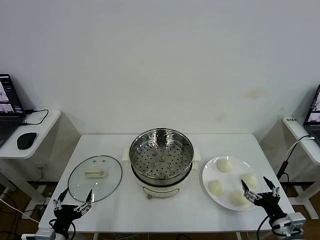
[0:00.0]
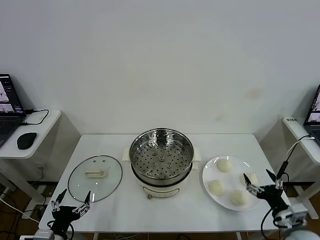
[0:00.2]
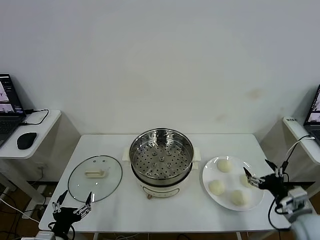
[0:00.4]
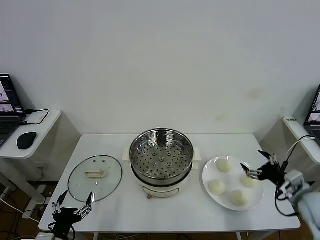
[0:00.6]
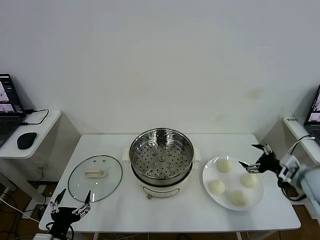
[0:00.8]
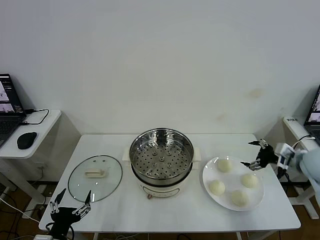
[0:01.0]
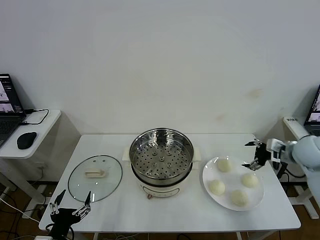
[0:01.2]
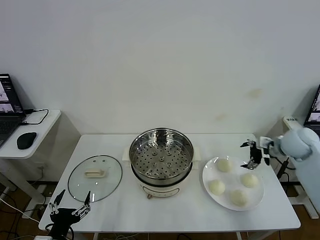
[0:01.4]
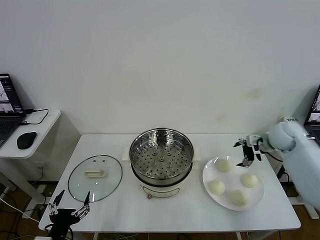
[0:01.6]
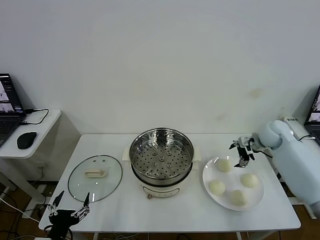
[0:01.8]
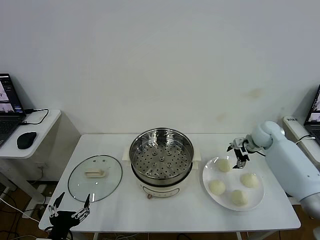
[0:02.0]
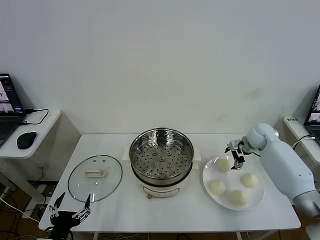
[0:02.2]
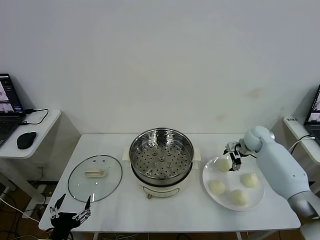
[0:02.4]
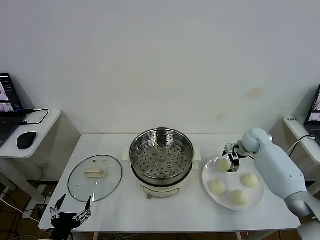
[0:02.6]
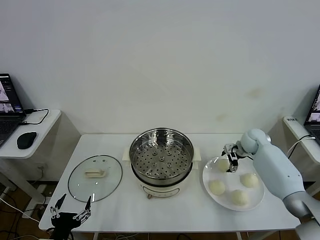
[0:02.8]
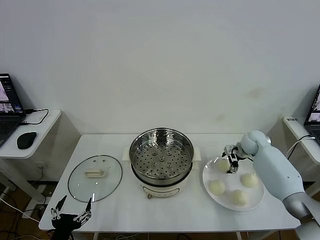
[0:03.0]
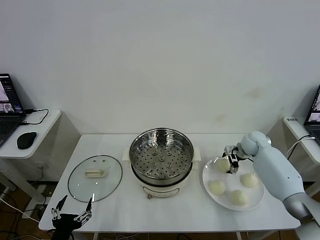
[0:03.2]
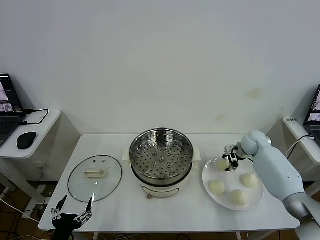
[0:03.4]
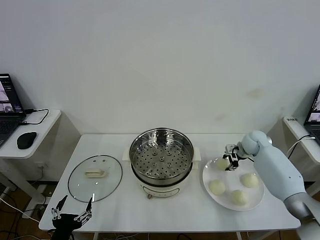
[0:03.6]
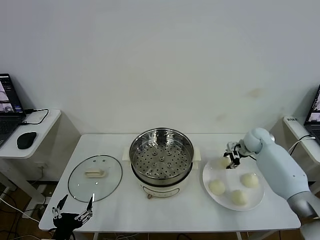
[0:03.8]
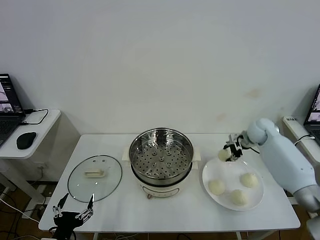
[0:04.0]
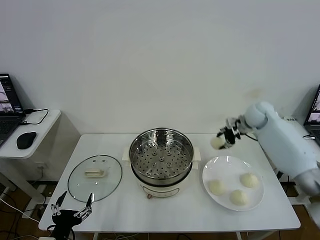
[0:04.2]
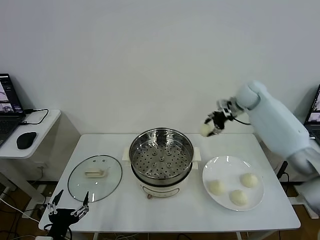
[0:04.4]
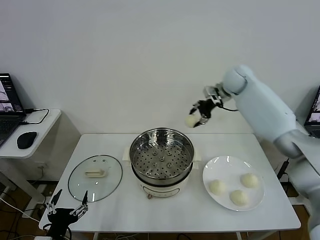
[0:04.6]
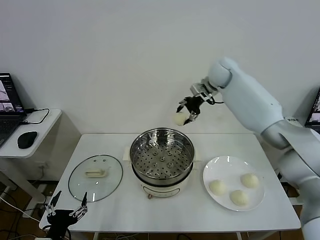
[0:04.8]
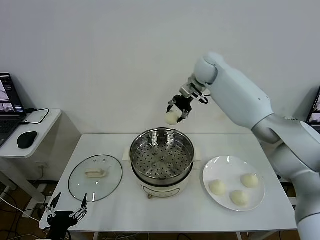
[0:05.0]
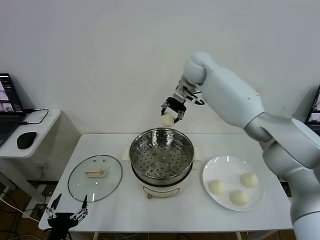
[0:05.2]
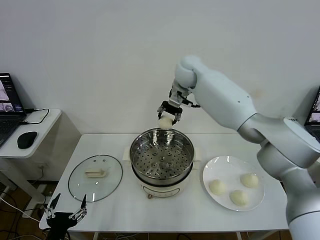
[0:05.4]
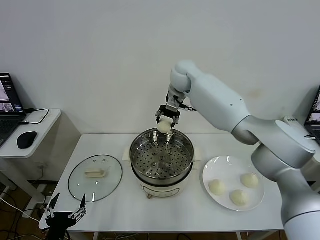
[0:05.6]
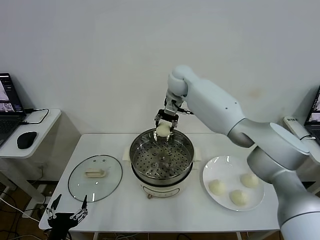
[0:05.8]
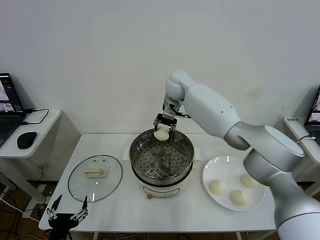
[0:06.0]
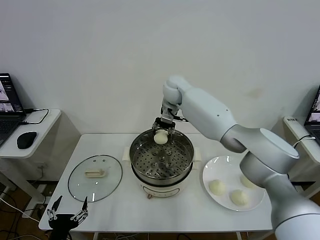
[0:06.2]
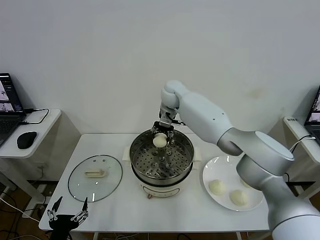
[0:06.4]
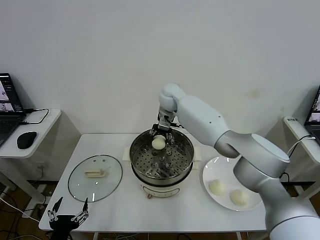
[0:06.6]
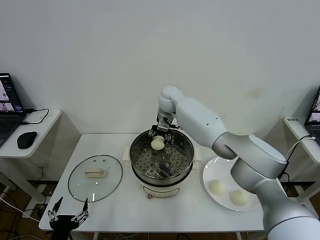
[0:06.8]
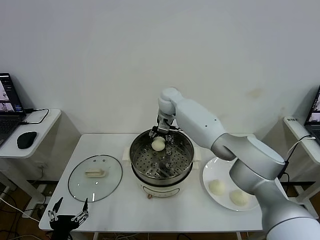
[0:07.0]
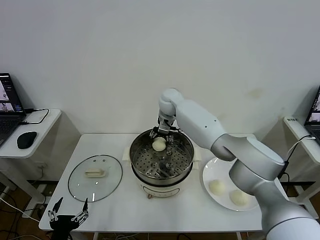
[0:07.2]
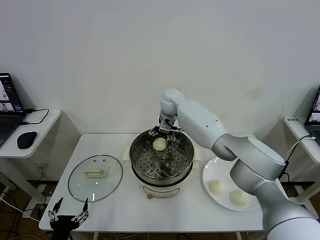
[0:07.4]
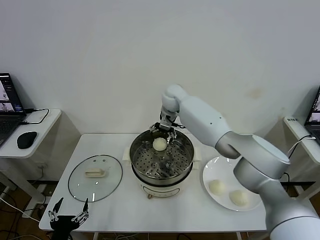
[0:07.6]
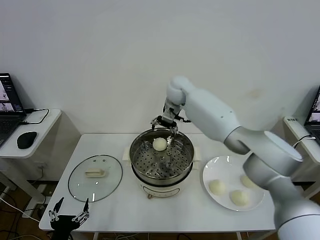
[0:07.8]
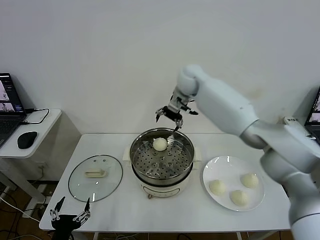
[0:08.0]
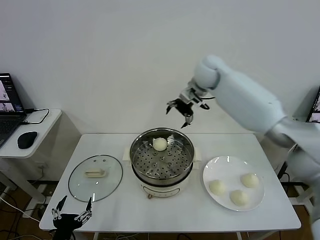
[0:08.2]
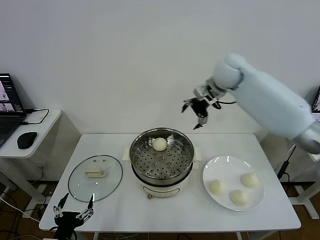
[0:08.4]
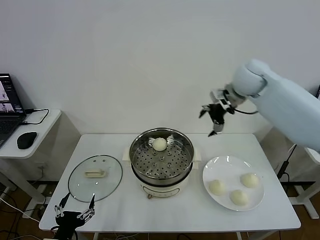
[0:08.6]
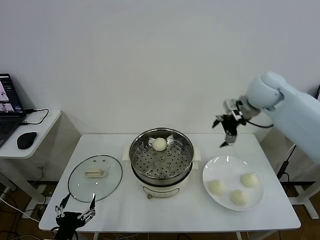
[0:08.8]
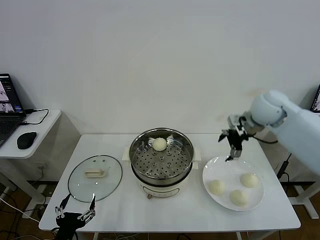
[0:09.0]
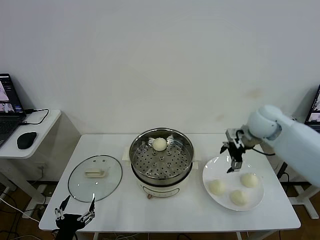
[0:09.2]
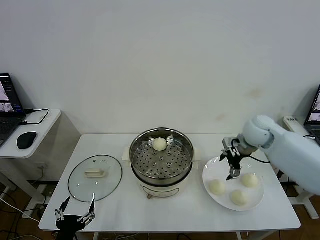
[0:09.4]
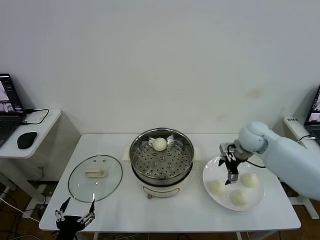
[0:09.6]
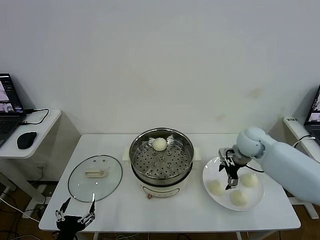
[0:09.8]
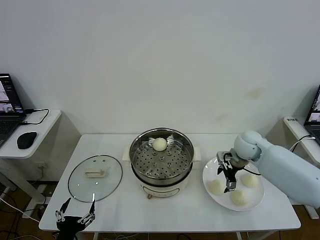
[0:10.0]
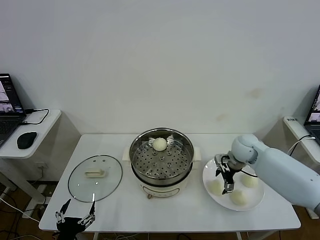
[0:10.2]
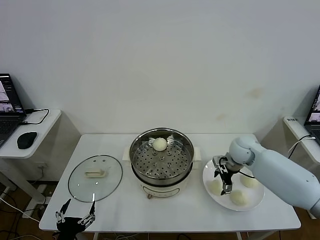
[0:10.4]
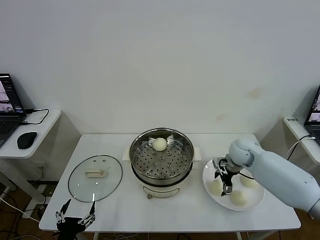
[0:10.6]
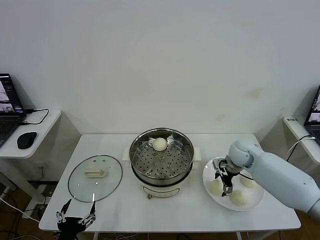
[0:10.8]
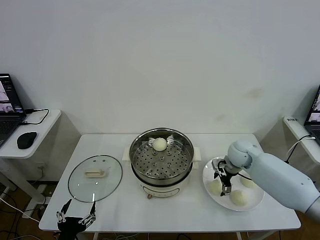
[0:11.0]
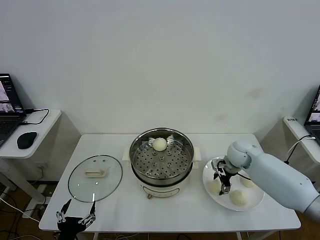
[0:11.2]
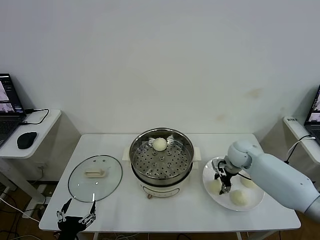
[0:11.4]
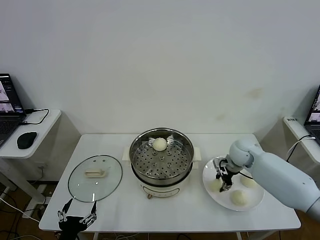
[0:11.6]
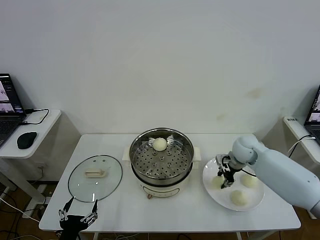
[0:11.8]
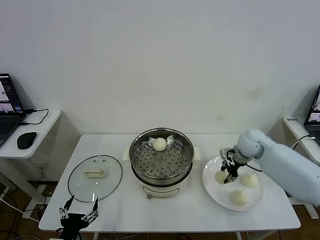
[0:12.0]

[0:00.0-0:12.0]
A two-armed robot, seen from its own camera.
Step, 0.0 to 3.4 s: Grasp the baozi in the plate with right gripper.
Step, 3.6 to 7.2 s: Place the baozi on the steamer with right gripper.
Step, 7.6 to 11.6 s: Grasp the baozi in the plate with right gripper.
1.6 to 3.0 s: The right gripper goes some 10 cm downward.
3.0 to 4.4 s: The right gripper is displaced upward and to the left by about 25 cm, and closes its fingers.
4.4 to 6.0 s: The right gripper shifts roughly 20 cm to the left.
6.0 to 7.6 s: The right gripper opens.
7.6 to 9.0 s: The right gripper heads to the right and backward, covering some 30 cm.
9.0 to 10.4 s: The right gripper moves downward, approximately 15 cm.
10.4 to 12.0 s: The right gripper goes about 5 cm upward, and closes up.

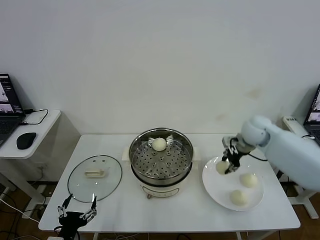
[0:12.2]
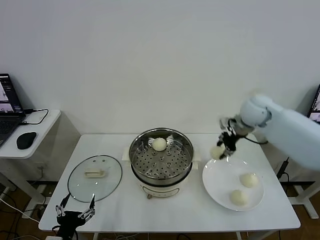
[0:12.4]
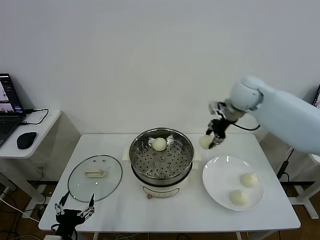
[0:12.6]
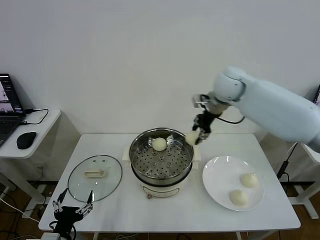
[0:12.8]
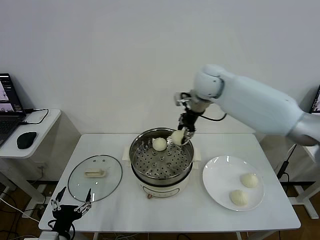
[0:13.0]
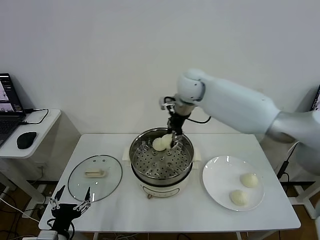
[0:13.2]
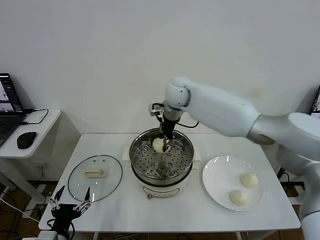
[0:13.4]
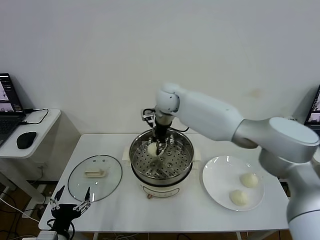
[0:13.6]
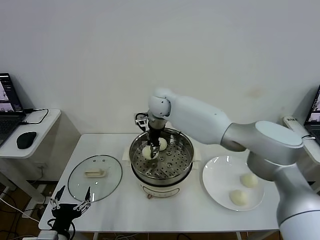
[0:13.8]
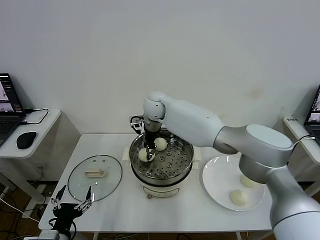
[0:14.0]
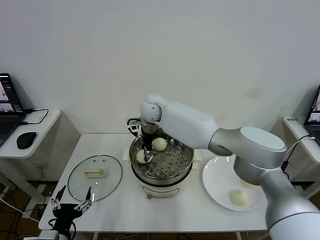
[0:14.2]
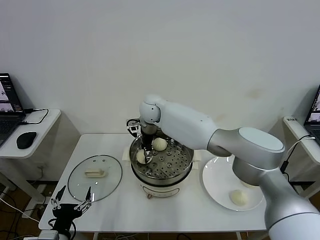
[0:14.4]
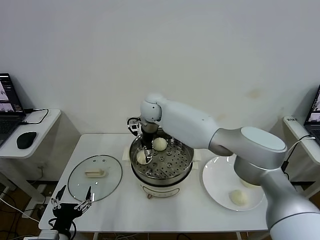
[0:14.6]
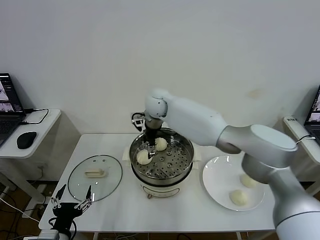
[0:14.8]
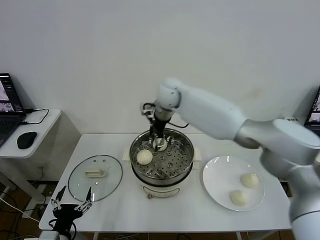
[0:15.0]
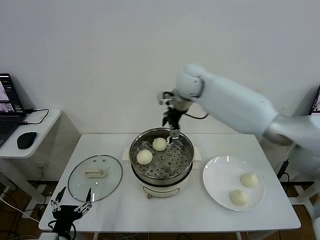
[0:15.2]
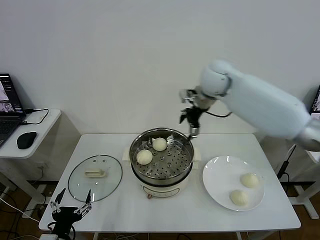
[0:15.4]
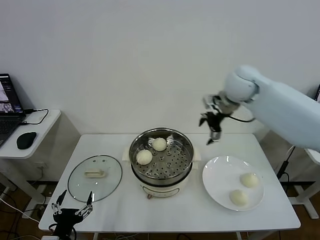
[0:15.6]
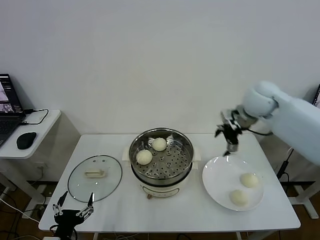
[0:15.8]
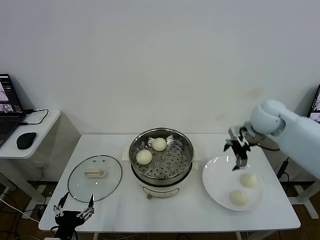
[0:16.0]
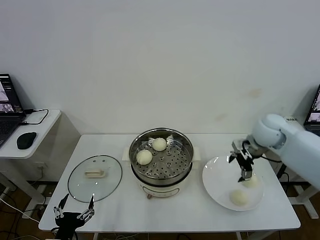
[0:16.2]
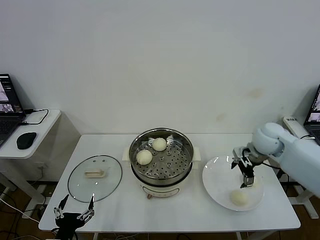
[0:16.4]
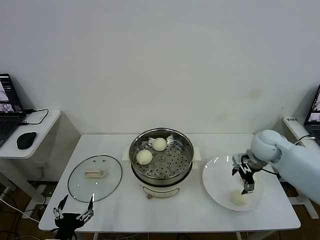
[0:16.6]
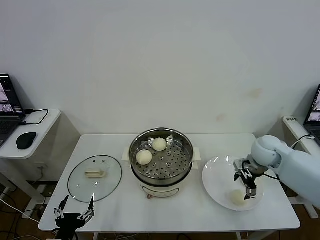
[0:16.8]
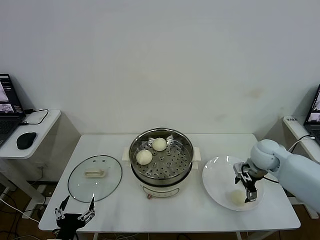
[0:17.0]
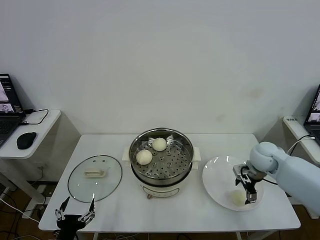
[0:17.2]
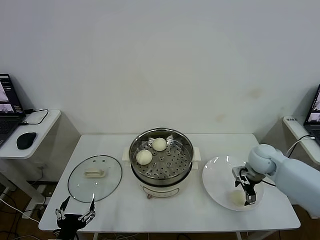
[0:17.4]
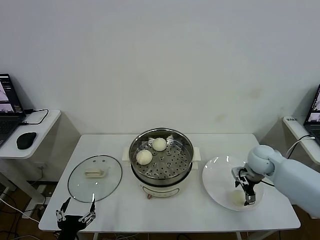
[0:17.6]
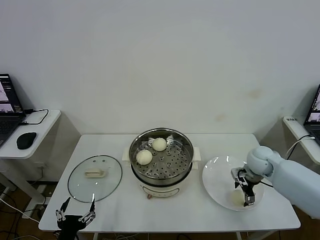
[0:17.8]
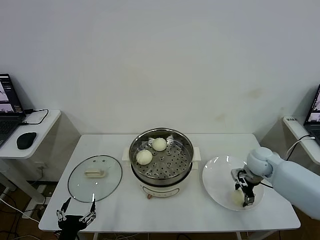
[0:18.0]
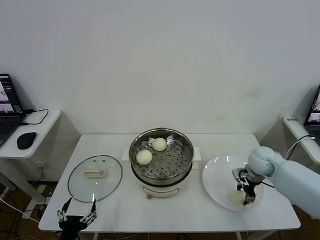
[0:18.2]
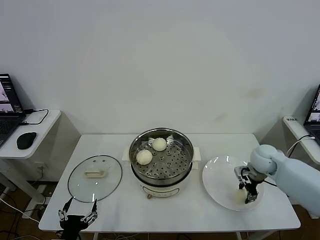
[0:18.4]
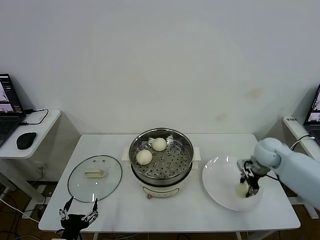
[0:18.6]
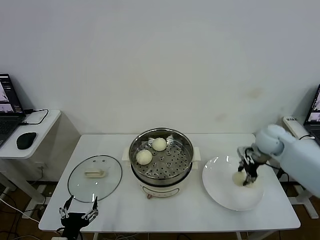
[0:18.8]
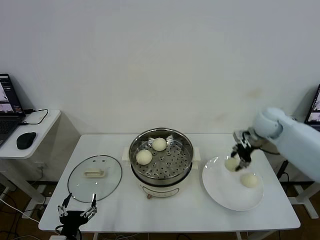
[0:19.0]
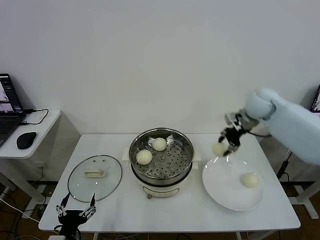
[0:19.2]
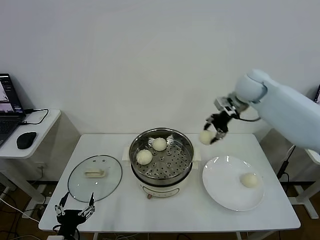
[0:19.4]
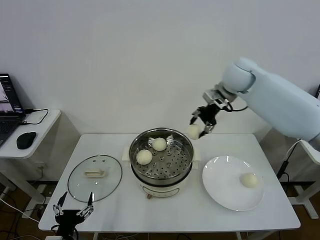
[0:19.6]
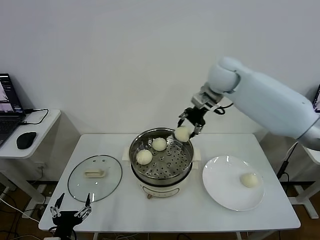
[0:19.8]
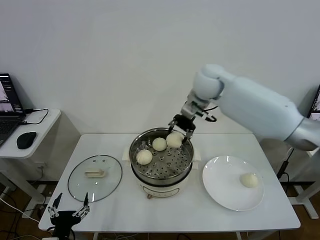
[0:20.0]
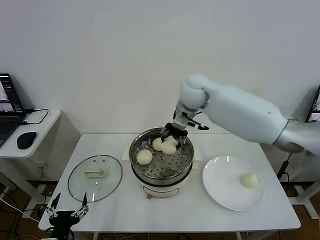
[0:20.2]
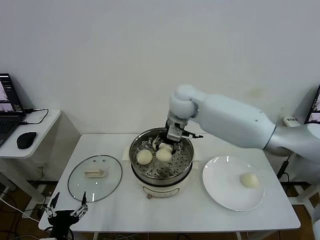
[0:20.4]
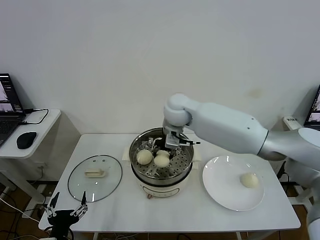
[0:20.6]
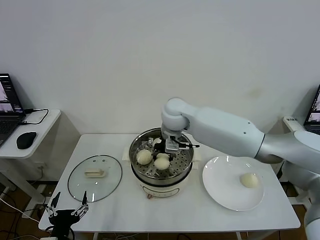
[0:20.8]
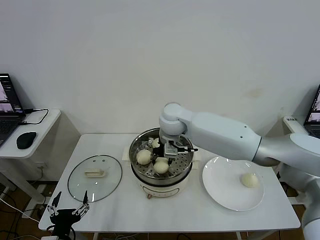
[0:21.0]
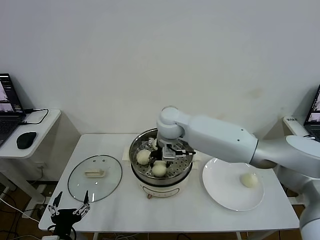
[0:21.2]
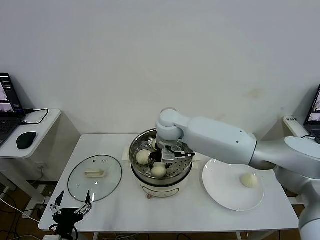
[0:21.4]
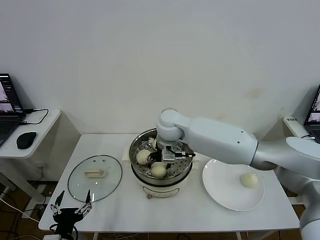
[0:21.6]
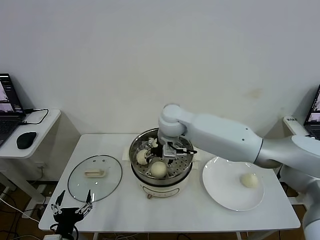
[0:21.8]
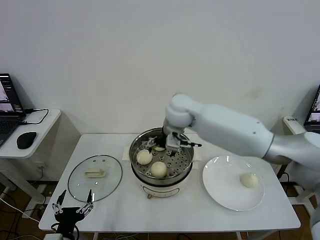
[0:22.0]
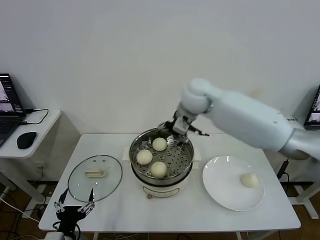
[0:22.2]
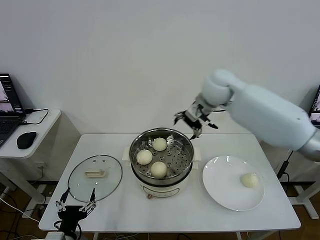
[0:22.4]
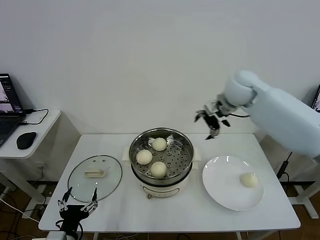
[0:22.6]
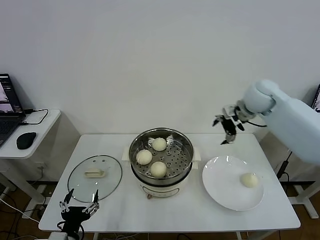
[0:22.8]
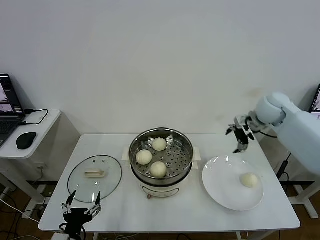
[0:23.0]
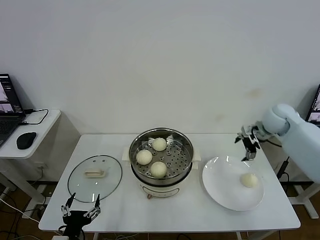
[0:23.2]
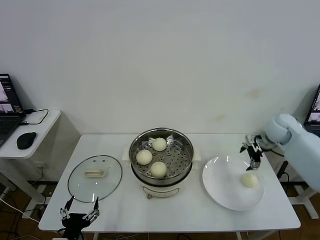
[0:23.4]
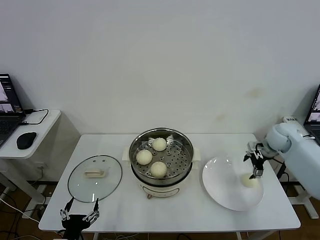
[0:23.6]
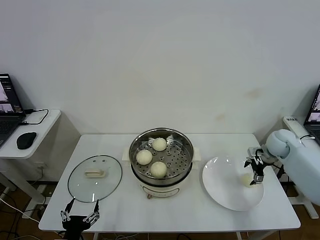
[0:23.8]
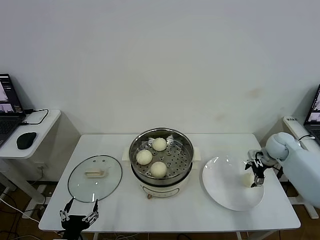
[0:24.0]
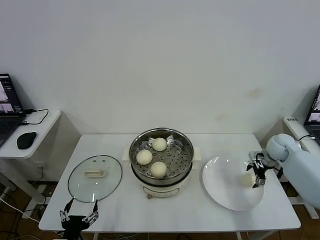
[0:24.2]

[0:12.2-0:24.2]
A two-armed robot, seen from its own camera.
Step, 12.2 to 14.6 s: Place the baozi on the steamer with right gripper.
Step, 14.8 to 18.2 s: Grasp the baozi in the plate with right gripper.
Step, 18.6 to 21.6 s: Place the baozi on the steamer with right gripper.
12.2 to 13.8 s: The right gripper shifts about 30 cm to the left.
13.8 to 15.2 s: The right gripper is displaced to the right and upward by some 15 cm, and opens its fingers.
15.2 to 16.6 s: The right gripper shifts about 30 cm to the right, downward and backward.
16.6 to 18.2 s: The right gripper is displaced downward by approximately 5 cm, and closes its fingers.
18.2 to 19.8 s: The right gripper heads upward, to the left and forward, covering approximately 35 cm.
19.8 to 21.2 s: The right gripper travels to the left, downward and backward by some 20 cm.
21.2 to 22.6 s: The right gripper moves to the right and upward, approximately 25 cm, and opens.
22.6 to 24.2 s: The right gripper travels downward and to the right by some 30 cm.
